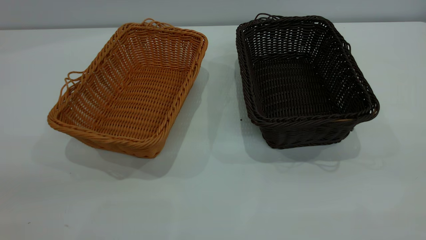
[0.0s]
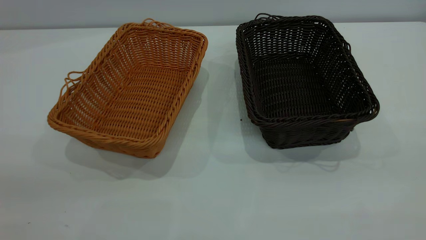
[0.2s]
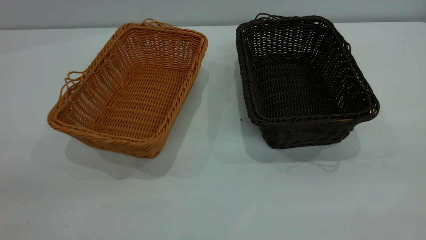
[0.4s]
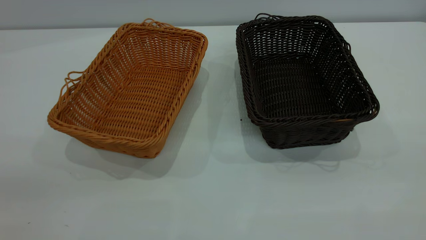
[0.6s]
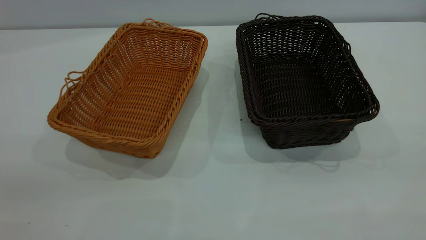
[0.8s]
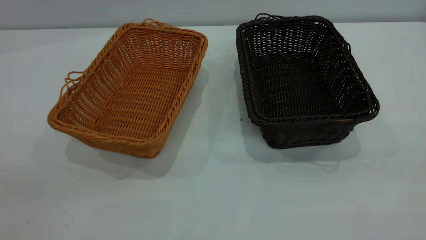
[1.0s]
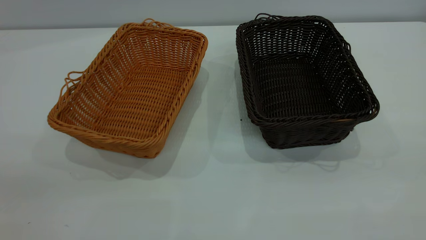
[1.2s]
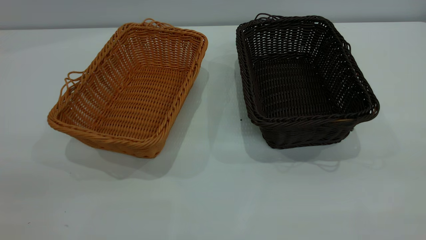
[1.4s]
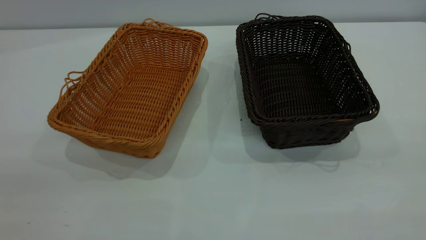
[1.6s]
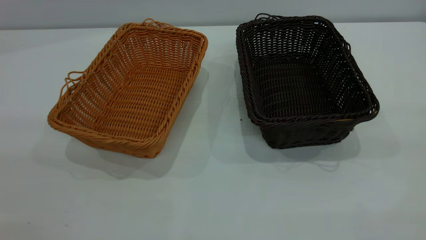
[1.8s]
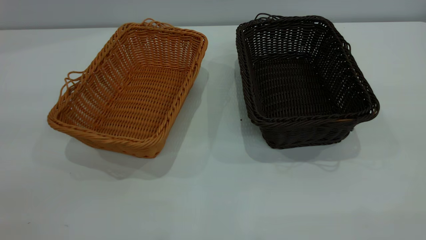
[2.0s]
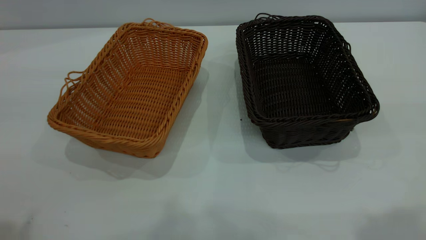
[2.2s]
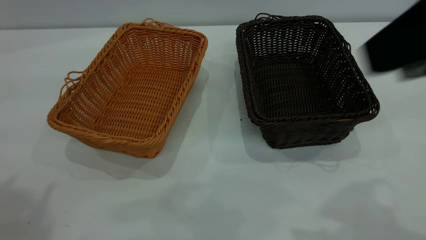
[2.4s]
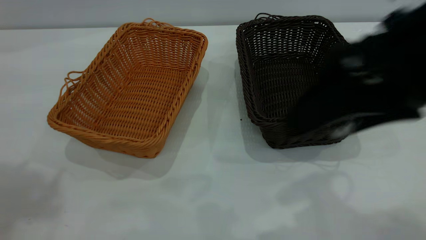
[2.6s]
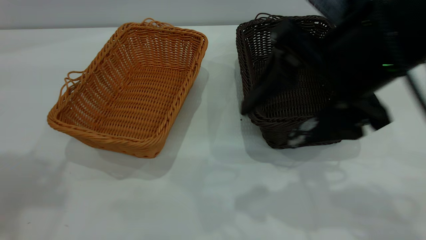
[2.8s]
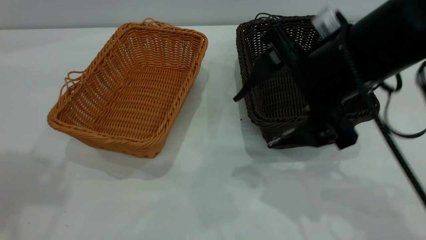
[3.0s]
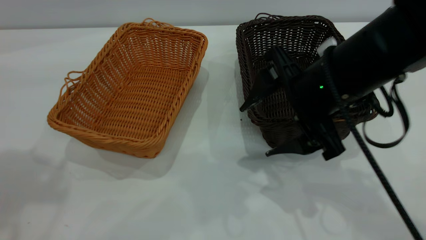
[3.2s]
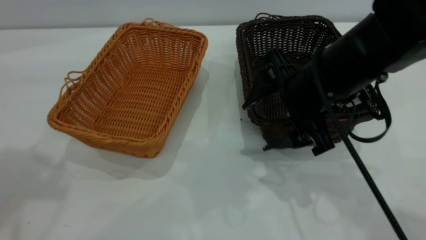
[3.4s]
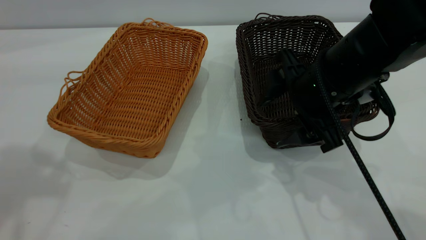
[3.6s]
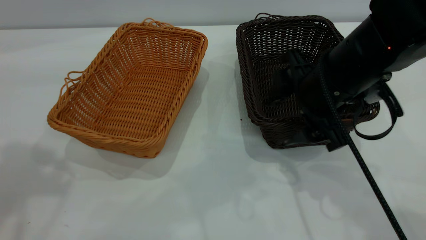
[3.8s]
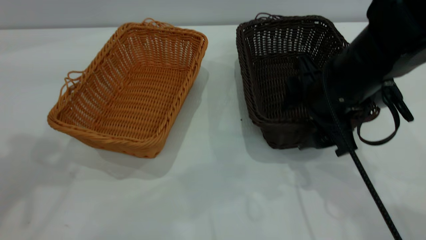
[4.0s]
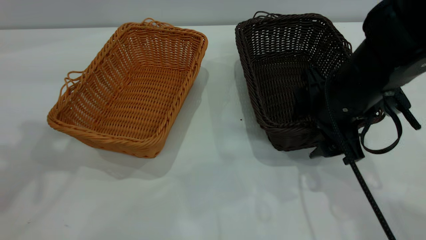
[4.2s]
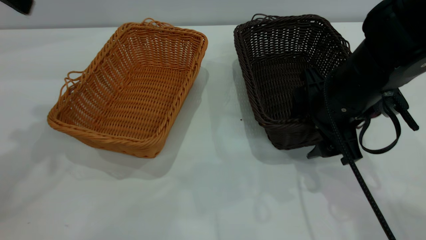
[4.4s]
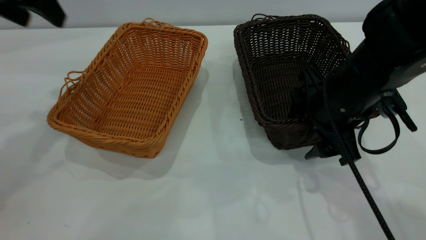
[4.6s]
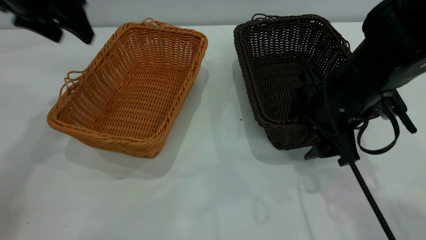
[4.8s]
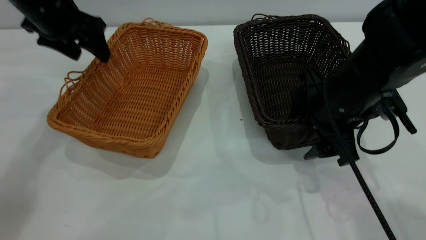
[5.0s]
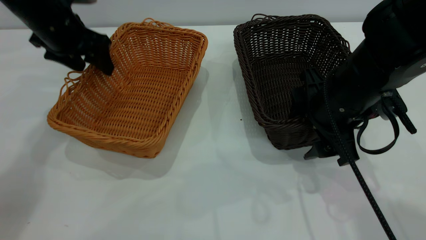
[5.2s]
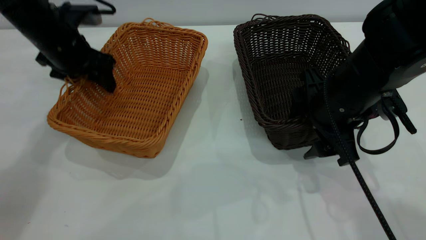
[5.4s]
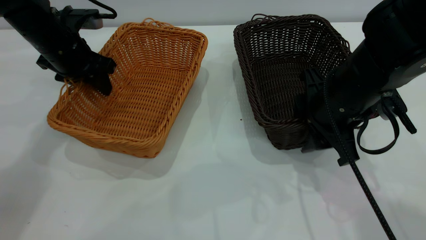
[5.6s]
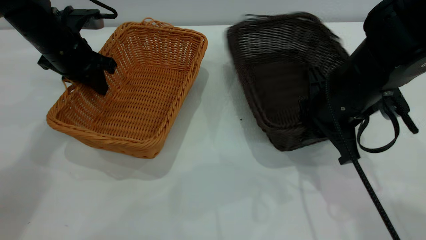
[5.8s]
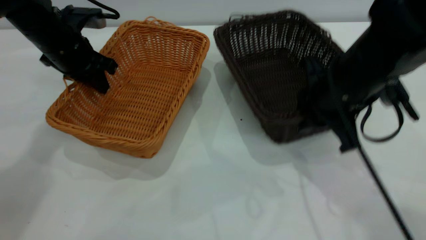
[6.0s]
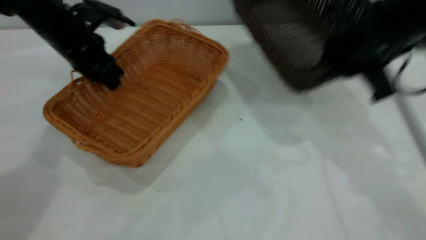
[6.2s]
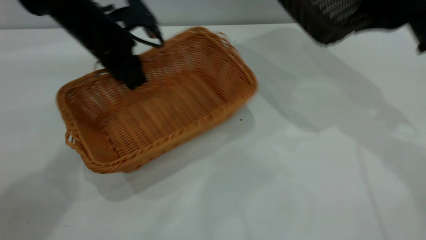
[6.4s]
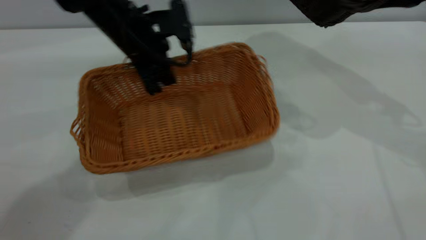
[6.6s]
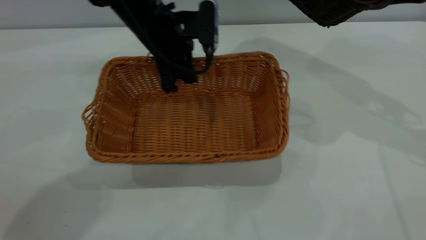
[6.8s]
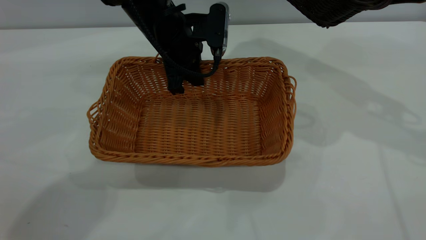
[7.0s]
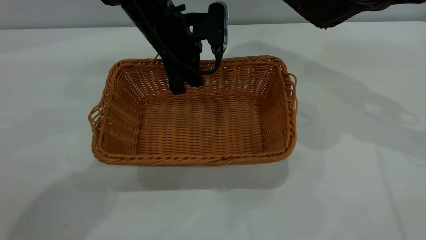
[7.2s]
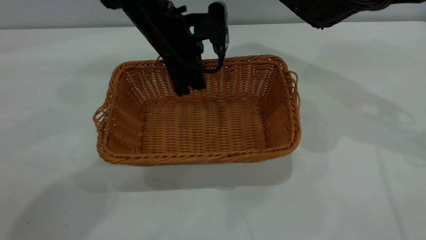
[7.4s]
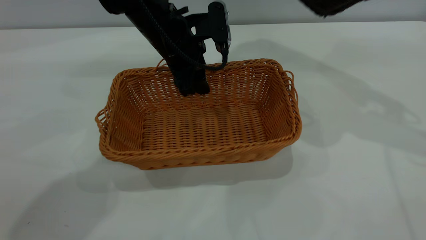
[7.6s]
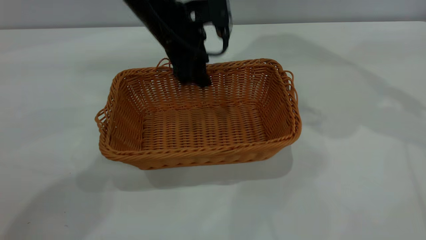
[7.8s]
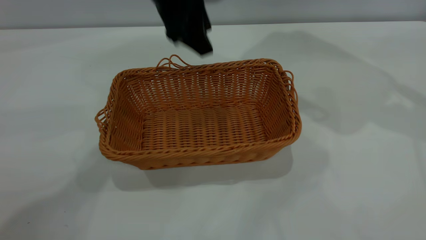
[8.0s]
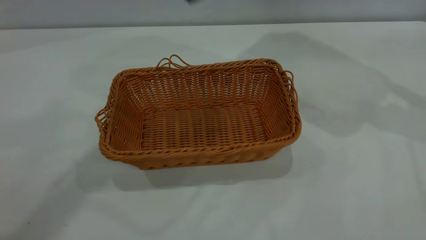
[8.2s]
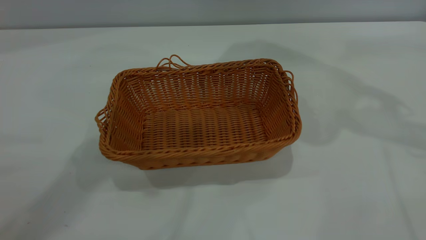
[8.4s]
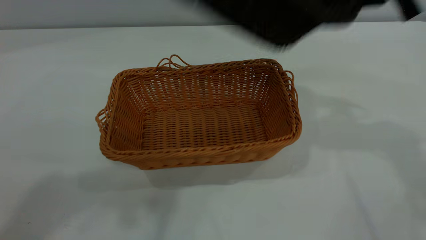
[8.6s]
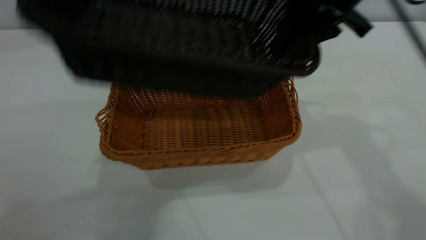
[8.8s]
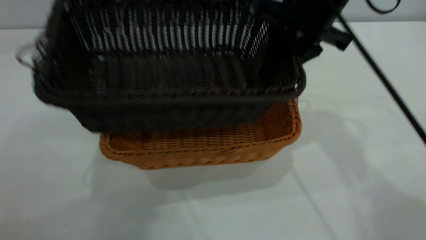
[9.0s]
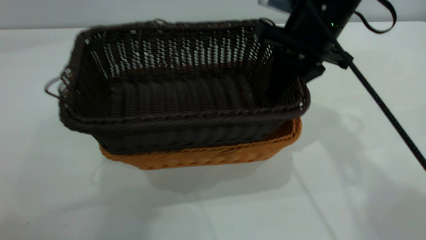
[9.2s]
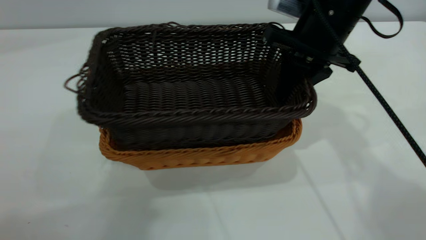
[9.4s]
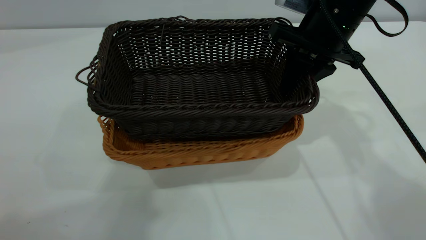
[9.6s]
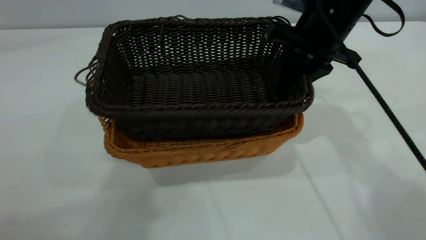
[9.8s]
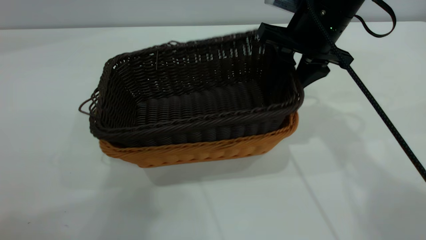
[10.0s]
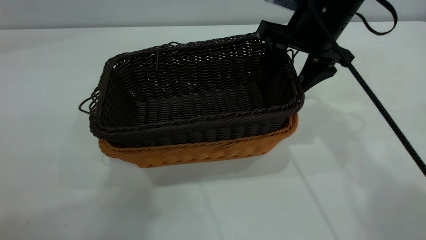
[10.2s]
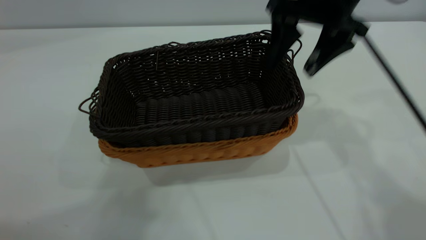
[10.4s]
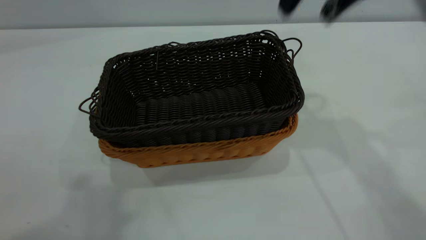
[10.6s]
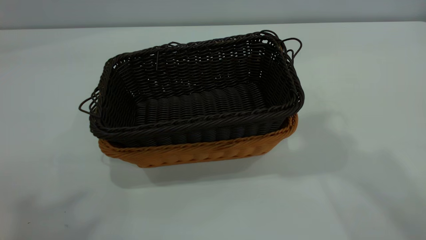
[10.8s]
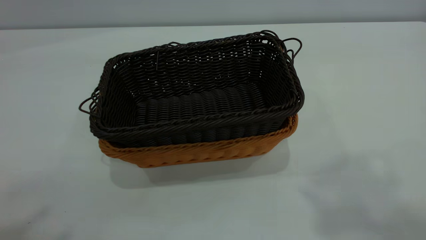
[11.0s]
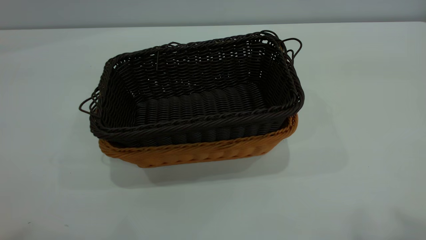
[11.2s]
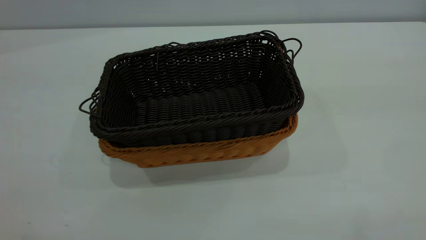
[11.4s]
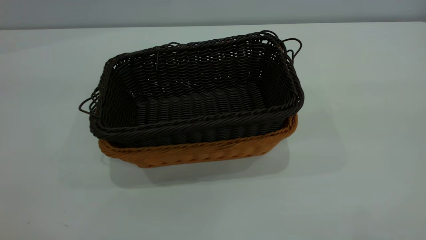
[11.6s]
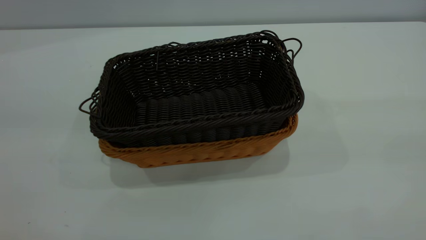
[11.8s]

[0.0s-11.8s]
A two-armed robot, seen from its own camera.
Task of the whole recording: the left gripper grasp the brown basket and place it in the center of the table, the right gripper grasp the black basket and place it inside the brown one.
Step, 0.0s to 6.0s: Pick up the light basket with the right gripper.
Step, 6.2s to 8.0s: Place the light-colored basket in the center.
Step, 8.2s to 10.4s: Place the dark basket on top of the light basket.
0.0s to 1.4s: Both grippers stay about where they are.
1.4s to 3.0s: The right gripper travels forward, downward and to the left by roughly 35 cm.
3.0s to 4.4s: The right gripper goes about 5 cm downward, while the left gripper travels forward and downward by some 15 cm.
4.4s to 6.0s: The right gripper closes, while the left gripper heads downward and forward, covering approximately 20 cm, and closes its fingers.
6.0s to 7.4s: The left gripper shifts some 20 cm to the right, and opens. The right gripper goes some 20 cm upward and to the right.
7.4s to 8.8s: The left gripper moves upward and backward, roughly 50 cm; the right gripper is displaced to the left by roughly 15 cm.
8.8s to 10.4s: The right gripper opens.
10.4s to 11.8s: The right gripper is displaced backward, to the right and upward by about 40 cm, while the left gripper moves backward, downward and to the left, about 15 cm.

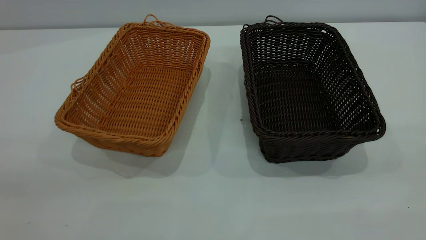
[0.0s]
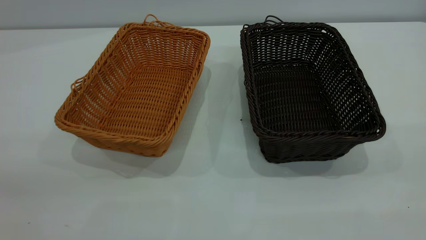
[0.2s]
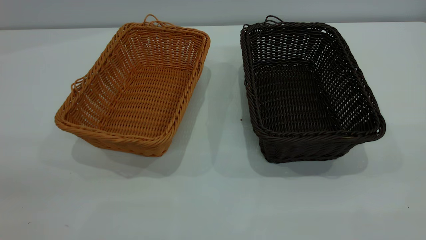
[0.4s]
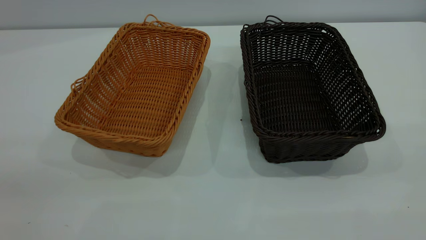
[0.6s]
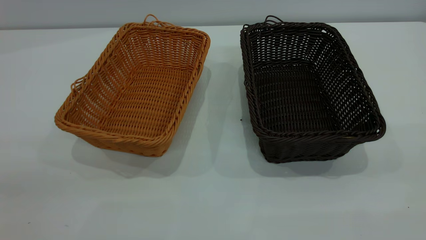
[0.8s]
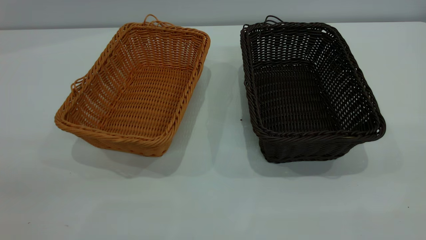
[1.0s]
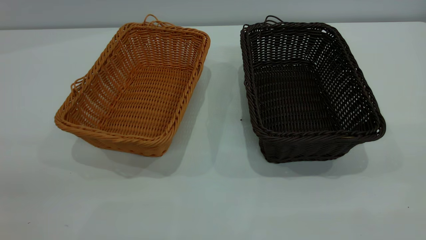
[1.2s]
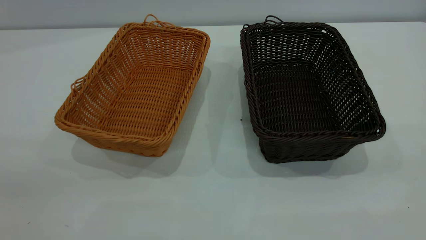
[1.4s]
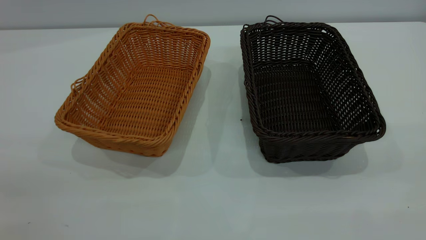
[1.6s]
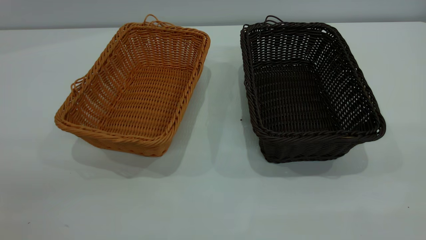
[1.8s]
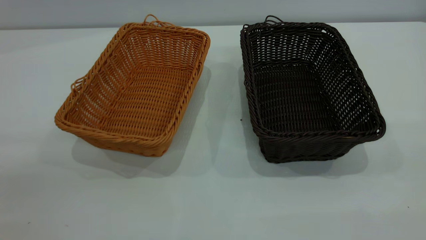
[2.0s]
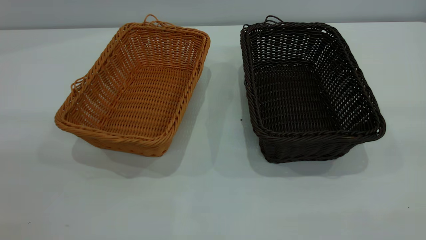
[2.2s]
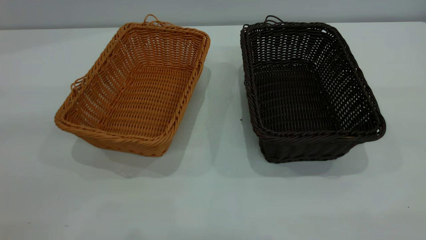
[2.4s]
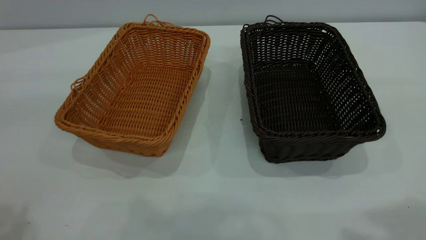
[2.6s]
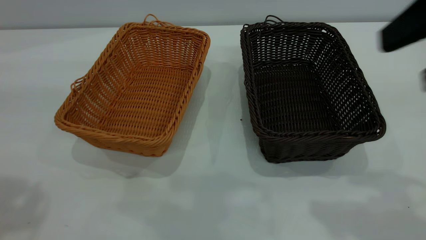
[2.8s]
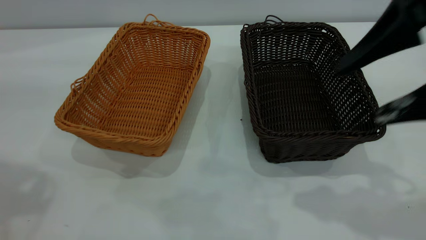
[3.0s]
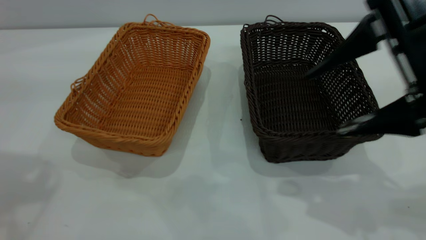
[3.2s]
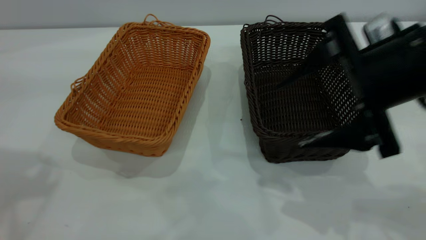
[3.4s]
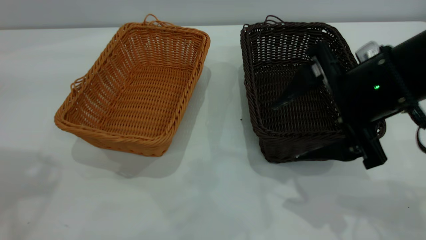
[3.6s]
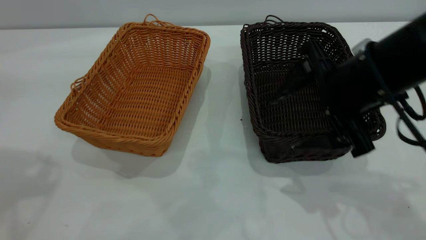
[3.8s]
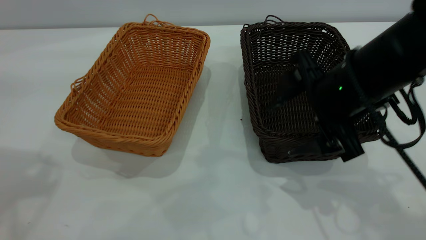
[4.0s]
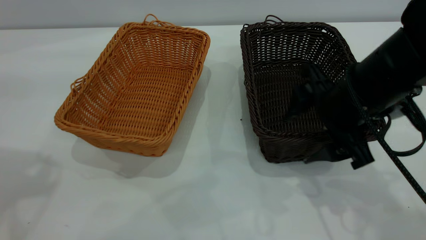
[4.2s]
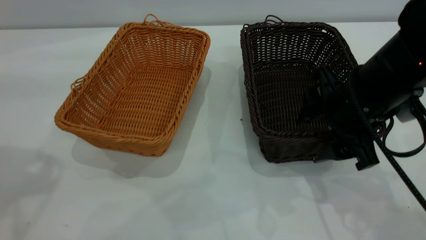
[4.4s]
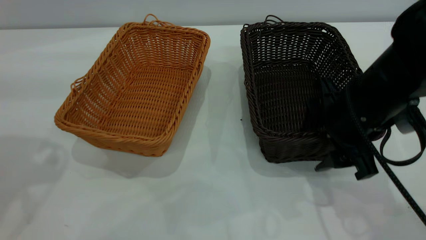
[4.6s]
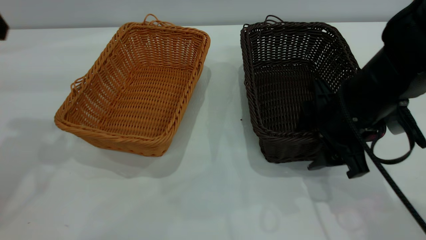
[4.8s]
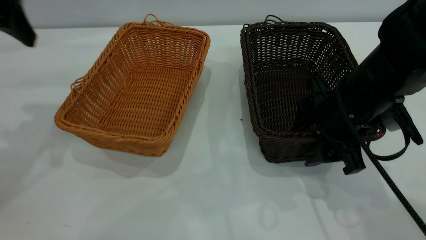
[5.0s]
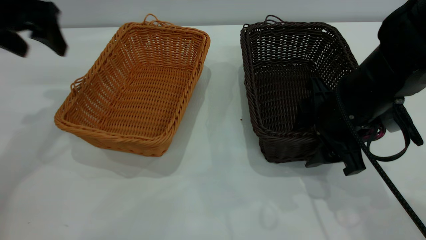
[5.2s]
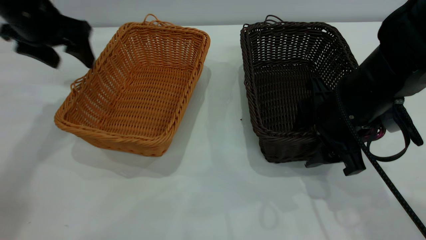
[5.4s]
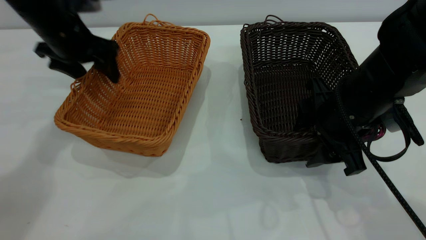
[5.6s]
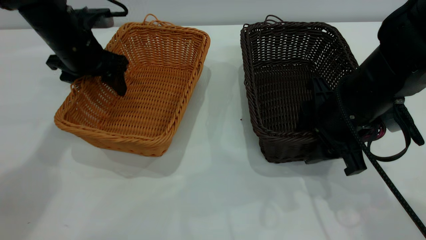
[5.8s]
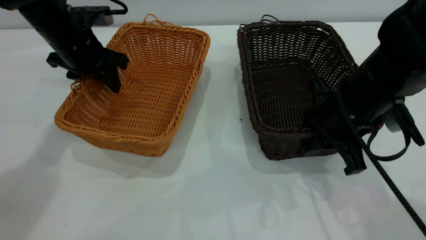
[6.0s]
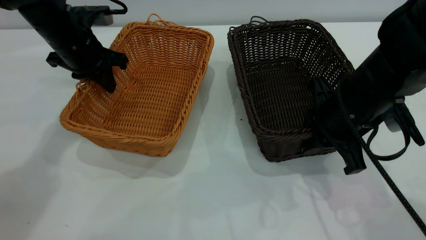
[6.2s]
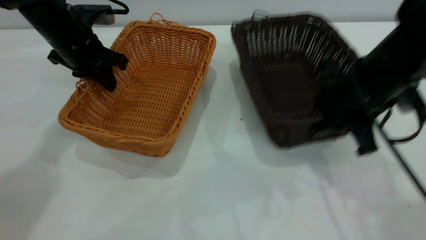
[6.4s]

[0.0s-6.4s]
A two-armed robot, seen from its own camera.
Task of the whole recording: the left gripper grasp the brown basket and place it in the center of the table, the right gripper grasp the black basket and place it inside the brown one.
Step, 0.0s to 6.2s: Pick up the light basket with the right gripper.
0.0s to 1.6s: Both grippers stay about where they are.
1.6s to 3.2s: The right gripper shifts some 25 cm forward and downward.
3.2s to 4.8s: The right gripper heads downward, covering some 10 cm.
4.8s to 6.4s: The left gripper heads downward, forward and to the right, covering approximately 20 cm, and closes up; the right gripper closes its fingers.
